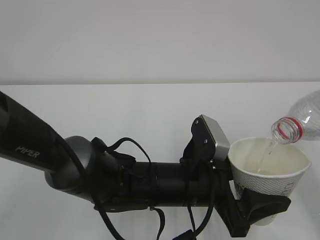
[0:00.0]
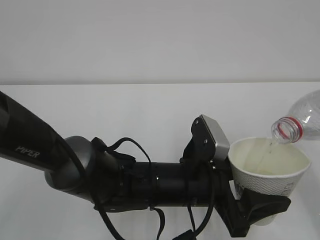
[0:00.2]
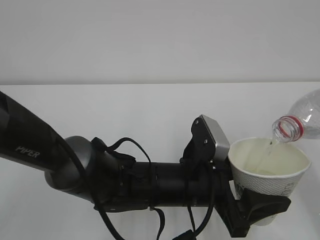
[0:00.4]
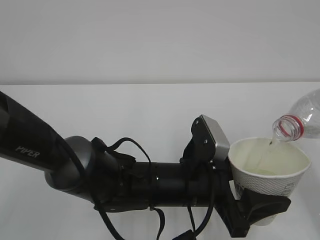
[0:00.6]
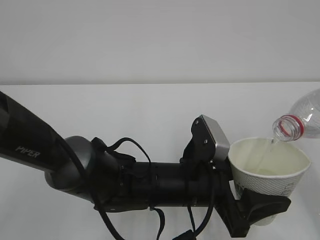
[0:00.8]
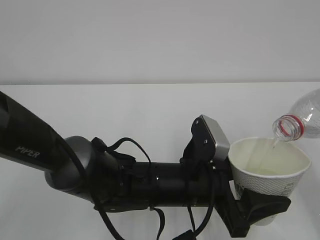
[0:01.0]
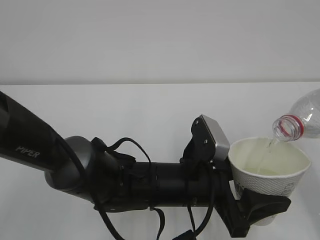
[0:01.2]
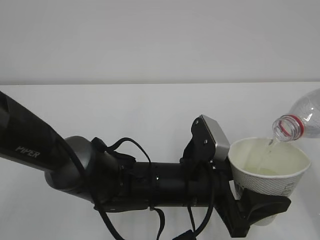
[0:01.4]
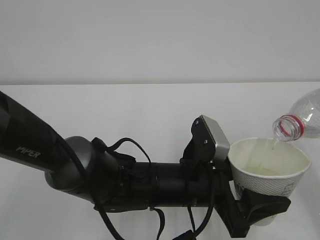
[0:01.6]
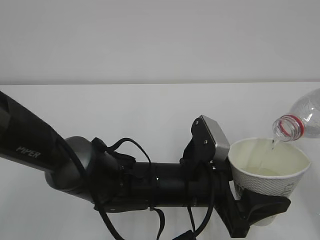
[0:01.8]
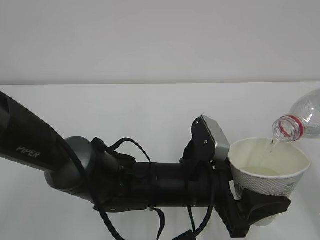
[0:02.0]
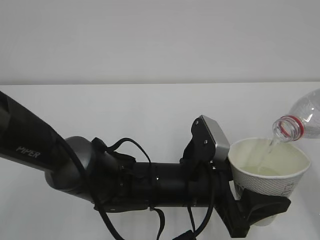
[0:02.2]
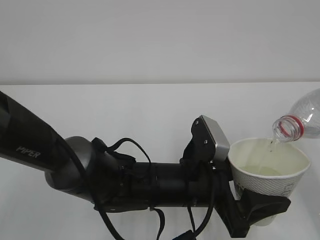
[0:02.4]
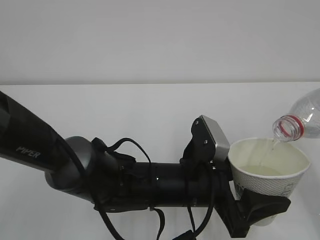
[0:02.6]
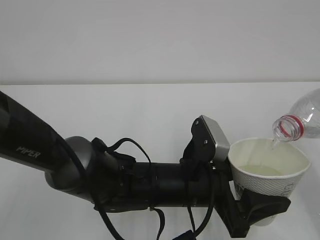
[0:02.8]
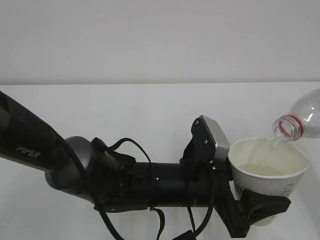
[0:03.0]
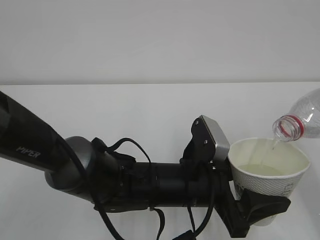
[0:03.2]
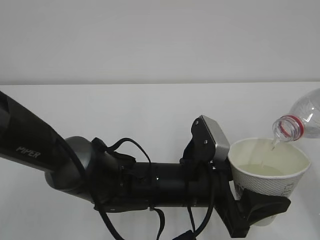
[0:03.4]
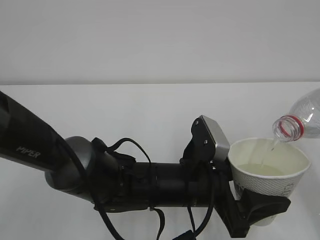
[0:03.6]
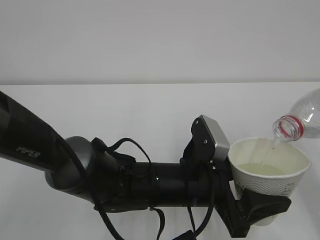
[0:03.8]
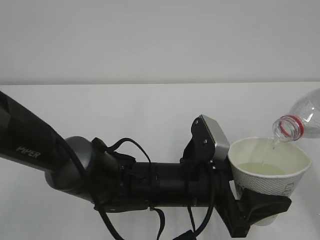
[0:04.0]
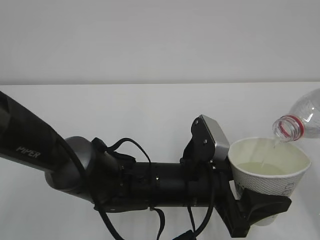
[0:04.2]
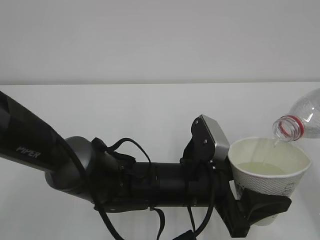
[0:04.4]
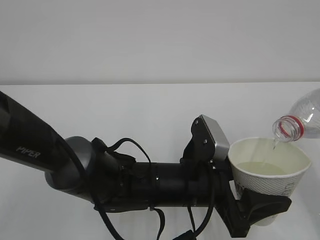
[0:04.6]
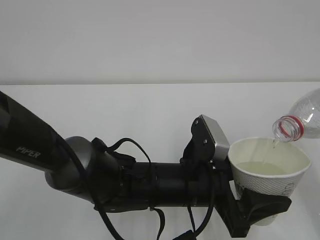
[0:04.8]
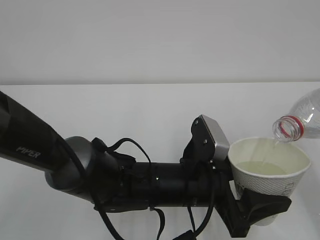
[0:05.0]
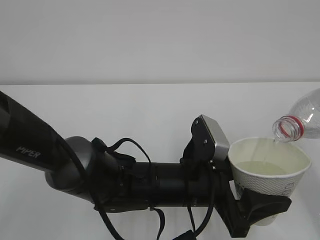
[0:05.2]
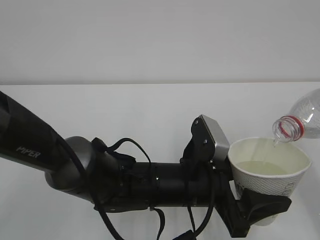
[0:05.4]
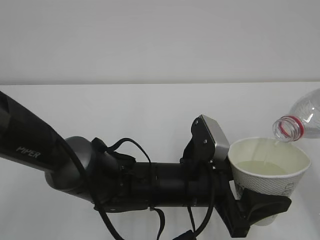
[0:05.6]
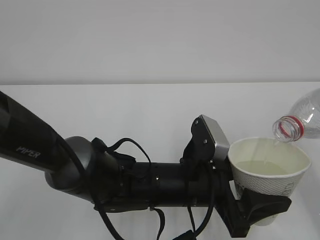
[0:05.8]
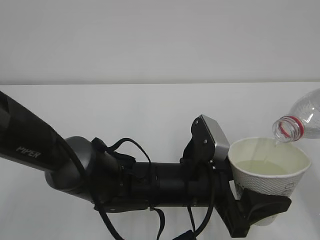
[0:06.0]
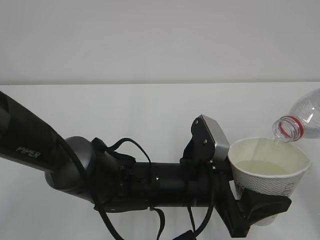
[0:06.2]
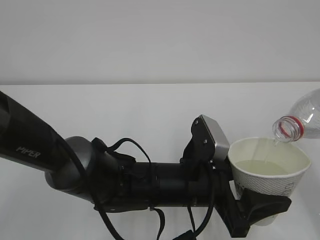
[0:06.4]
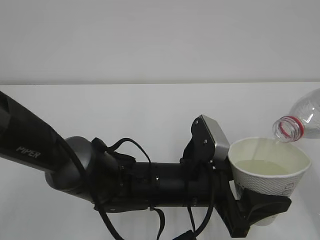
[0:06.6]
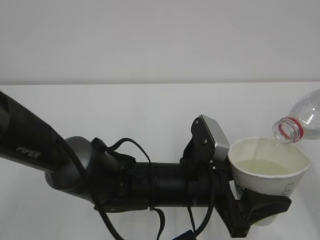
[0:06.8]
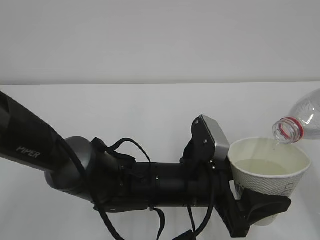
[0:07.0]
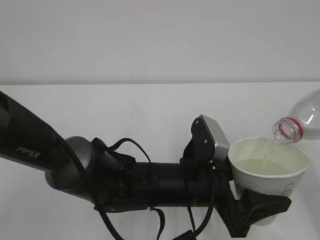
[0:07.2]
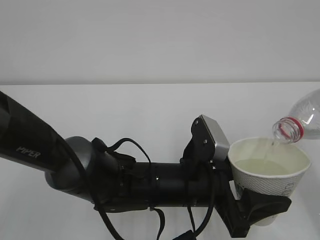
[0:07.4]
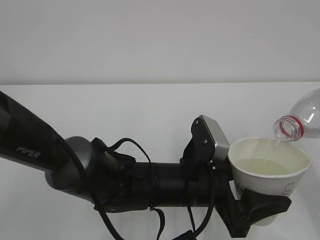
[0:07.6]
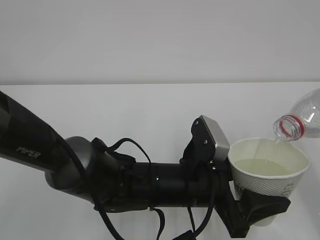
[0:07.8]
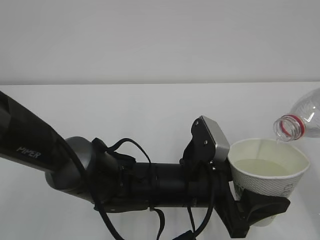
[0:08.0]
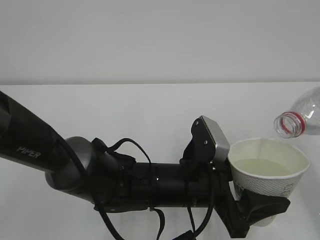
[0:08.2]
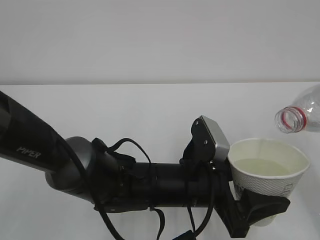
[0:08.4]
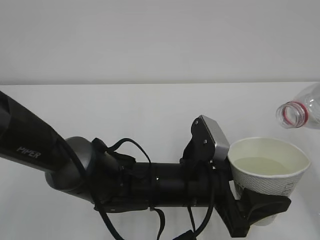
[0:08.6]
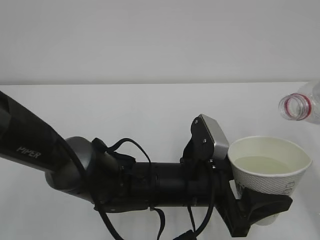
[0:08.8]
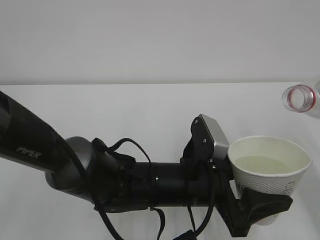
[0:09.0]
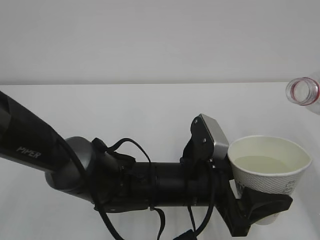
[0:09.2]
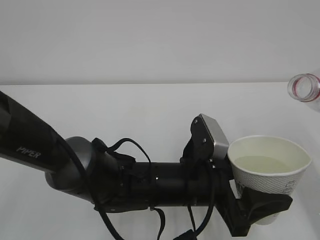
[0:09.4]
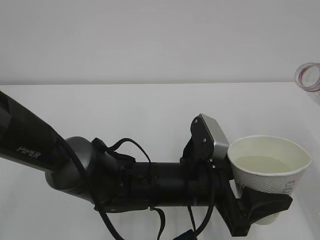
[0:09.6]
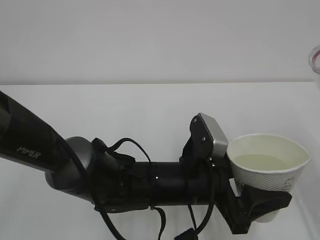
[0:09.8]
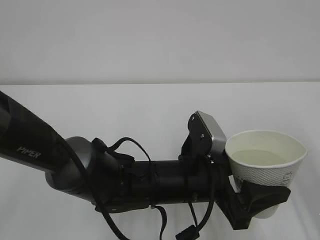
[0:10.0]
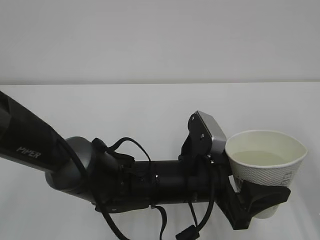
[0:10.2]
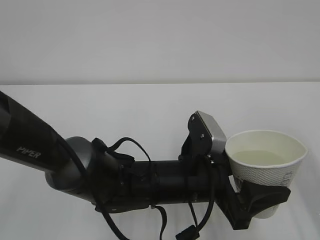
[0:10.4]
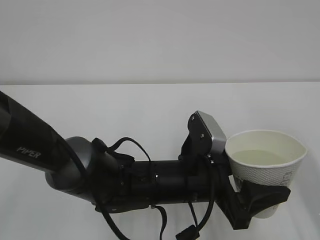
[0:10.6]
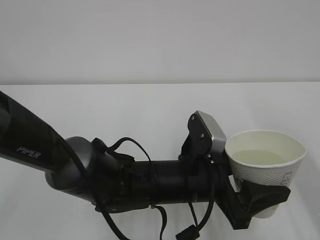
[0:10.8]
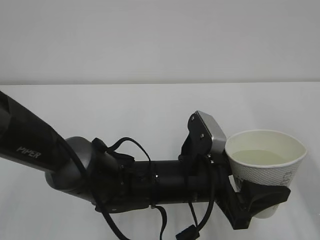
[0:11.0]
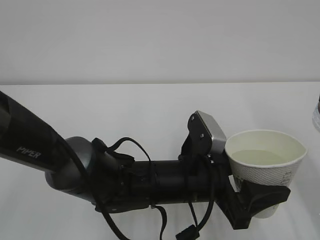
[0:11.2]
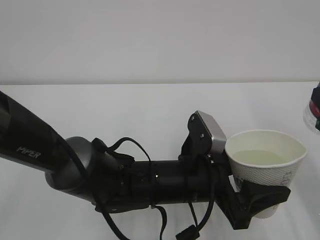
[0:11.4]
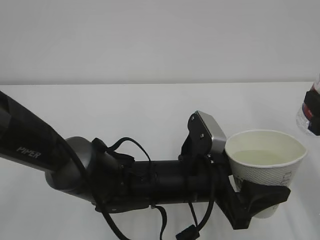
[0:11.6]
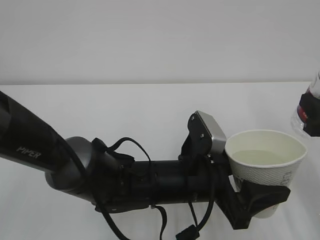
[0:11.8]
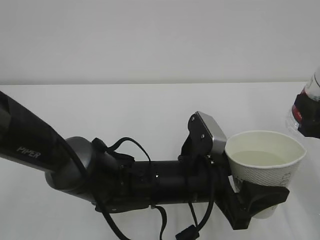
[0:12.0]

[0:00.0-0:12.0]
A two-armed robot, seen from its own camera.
0:00.0 to 0:07.6: Both grippers stay put.
0:07.6 to 0:09.0: The grippers make only small movements.
0:10.4 to 0:12.0: The right gripper moves downward and forward, roughly 10 cm.

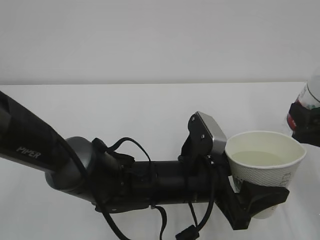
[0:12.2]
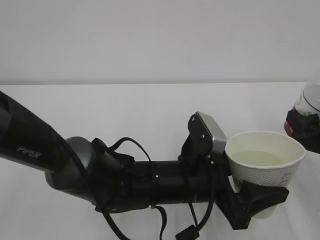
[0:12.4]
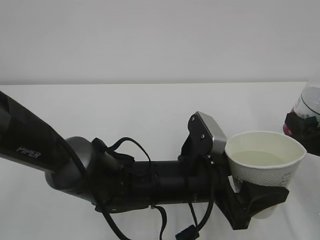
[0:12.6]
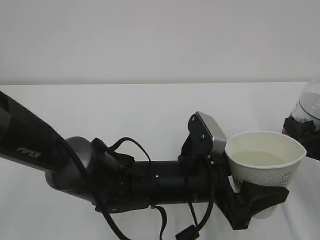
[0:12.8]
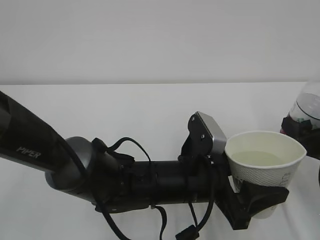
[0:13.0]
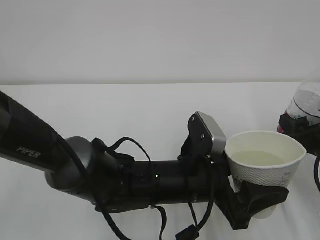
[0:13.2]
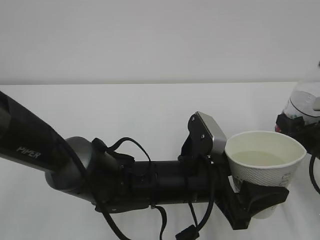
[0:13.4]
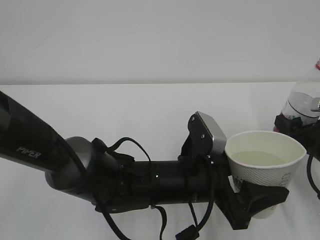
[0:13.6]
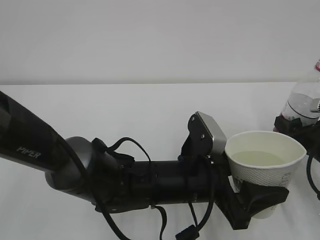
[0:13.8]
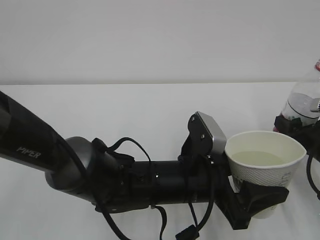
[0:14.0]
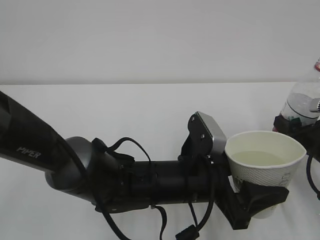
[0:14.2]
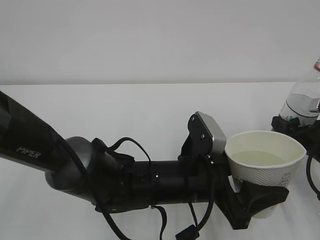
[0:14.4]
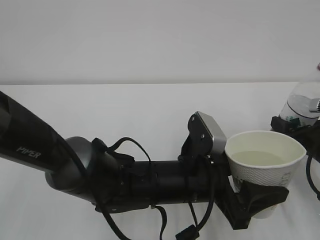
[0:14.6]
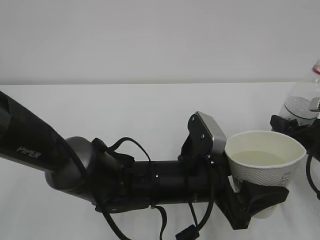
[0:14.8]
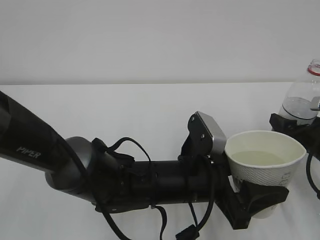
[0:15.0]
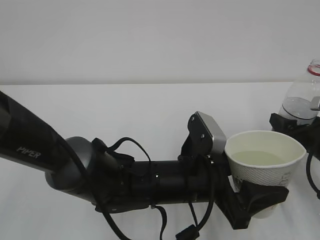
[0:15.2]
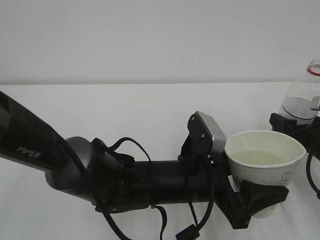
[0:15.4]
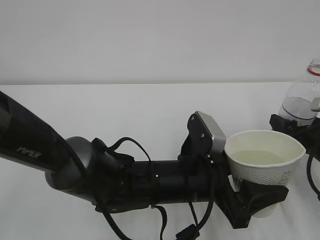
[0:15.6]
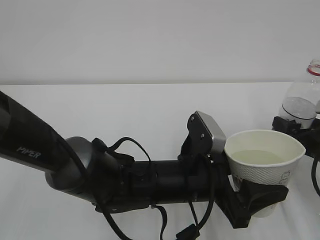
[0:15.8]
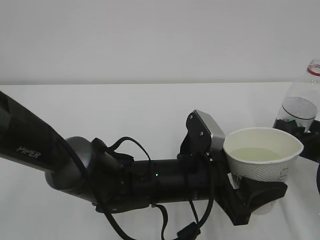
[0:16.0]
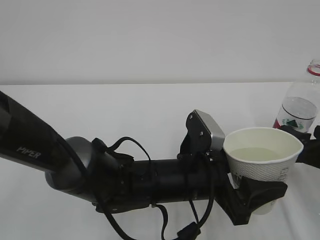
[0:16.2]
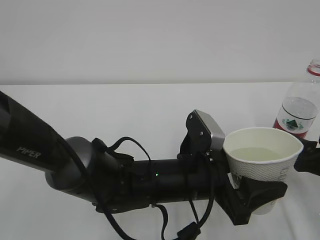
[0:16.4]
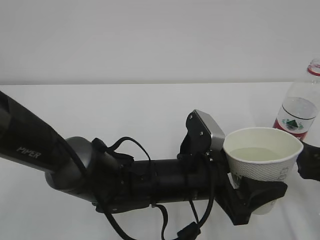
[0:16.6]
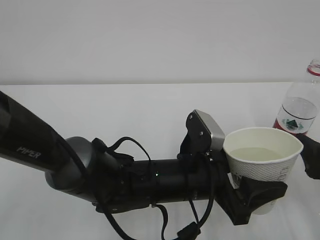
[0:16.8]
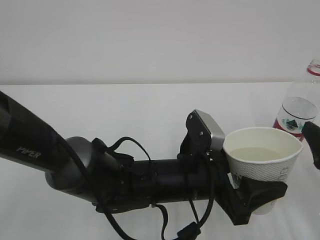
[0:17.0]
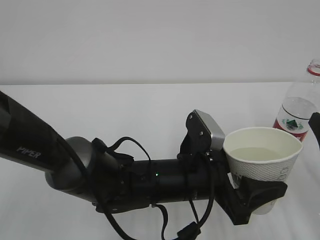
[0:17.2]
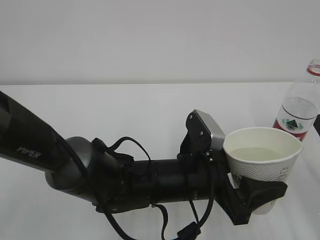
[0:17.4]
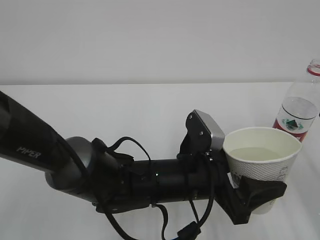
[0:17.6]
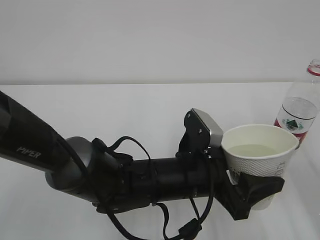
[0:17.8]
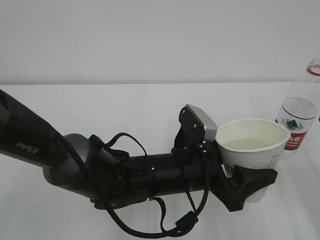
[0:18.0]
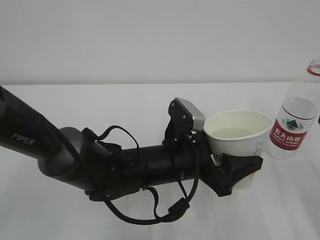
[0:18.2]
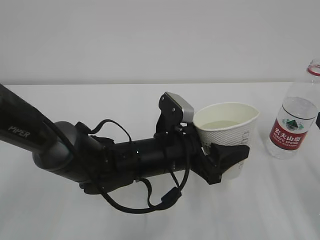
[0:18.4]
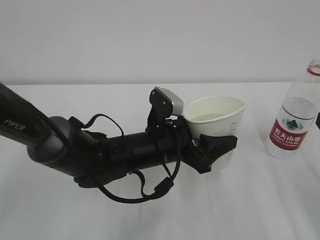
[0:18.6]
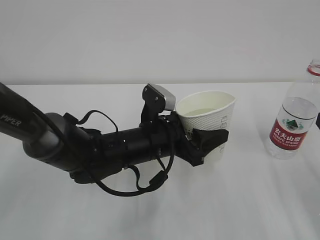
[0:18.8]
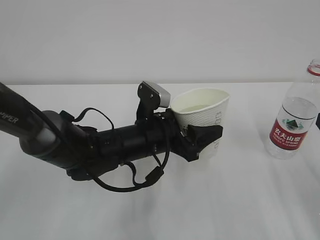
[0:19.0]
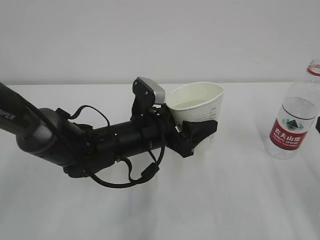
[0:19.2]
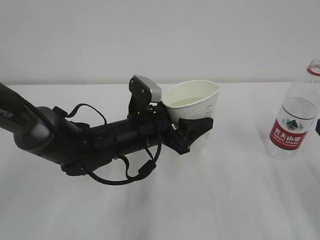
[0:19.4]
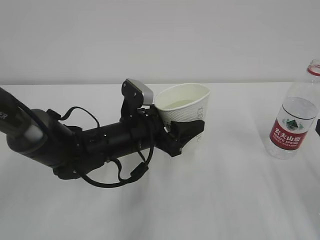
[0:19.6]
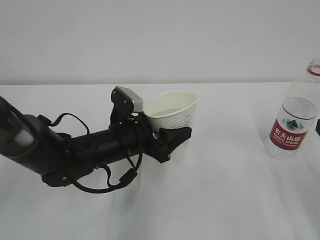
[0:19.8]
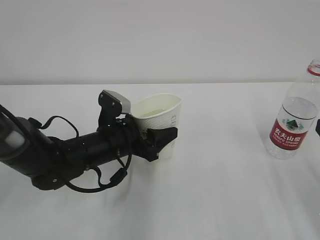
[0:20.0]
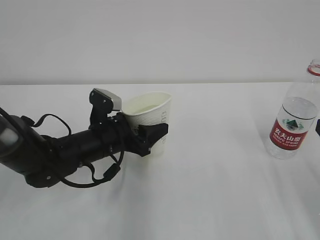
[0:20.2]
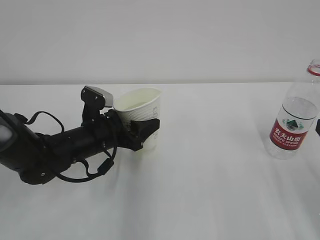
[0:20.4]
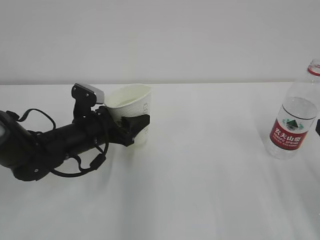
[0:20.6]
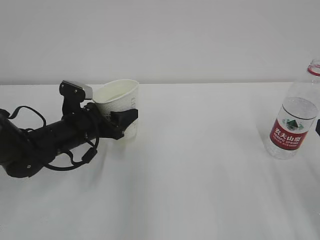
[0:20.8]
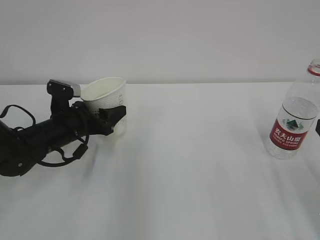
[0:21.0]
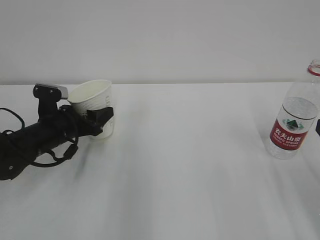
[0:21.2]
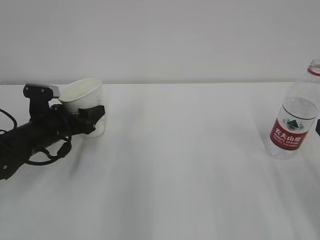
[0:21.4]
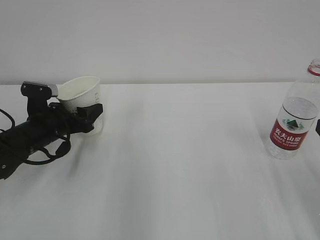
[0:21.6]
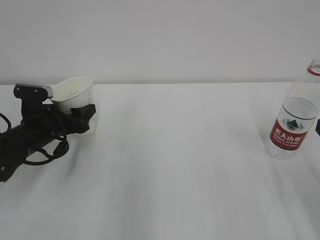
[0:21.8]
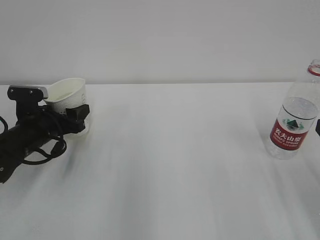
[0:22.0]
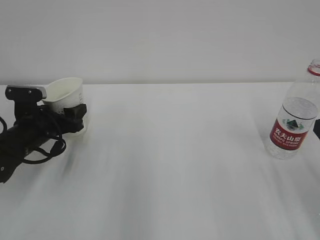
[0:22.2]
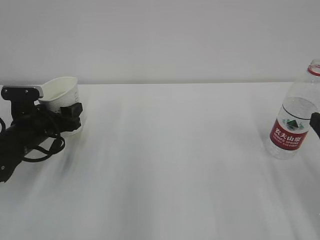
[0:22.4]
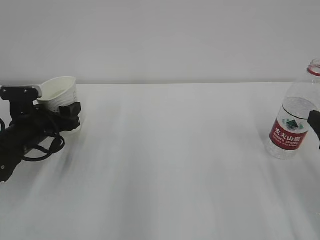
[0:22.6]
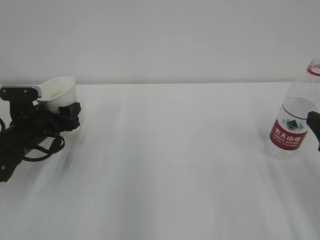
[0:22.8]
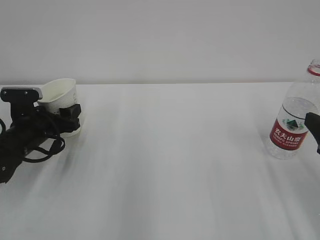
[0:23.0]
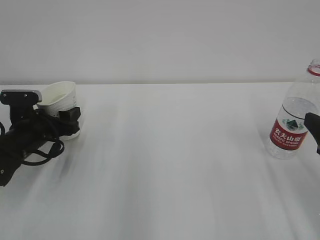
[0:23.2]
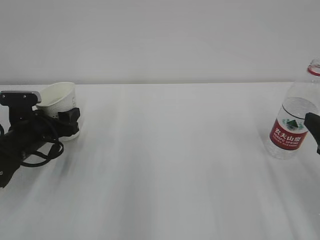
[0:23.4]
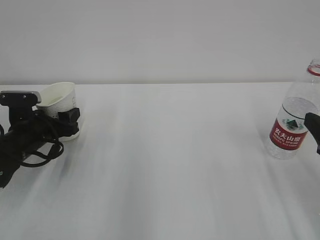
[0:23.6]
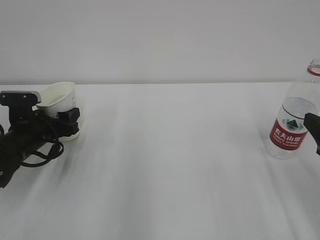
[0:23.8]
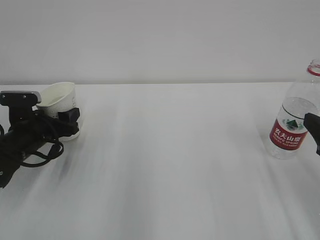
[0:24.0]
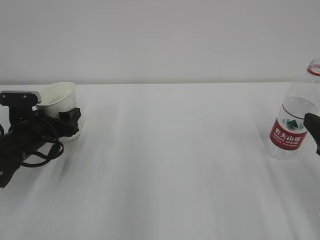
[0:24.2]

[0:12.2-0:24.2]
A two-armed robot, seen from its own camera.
0:12.2 to 0:13.8: The right gripper shifts by roughly 5 cm.
0:13.8 to 0:15.2: The right gripper opens.
0:15.2 to 0:16.6: The right gripper travels backward by roughly 10 cm.
0:16.6 to 0:18.2: The right gripper travels upward by approximately 10 cm.
0:18.2 to 0:19.8: The left gripper is displaced to the left and forward by some 10 cm.
0:19.8 to 0:21.2: The left gripper travels to the left by approximately 15 cm.
0:21.2 to 0:22.6: The grippers stay close to where they were, moving slightly.
0:22.6 to 0:24.2: Neither gripper changes place.
